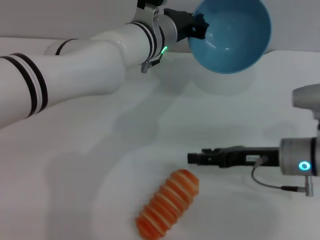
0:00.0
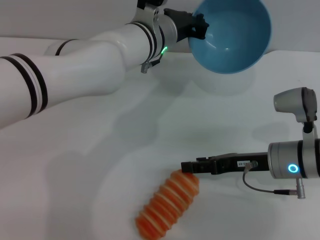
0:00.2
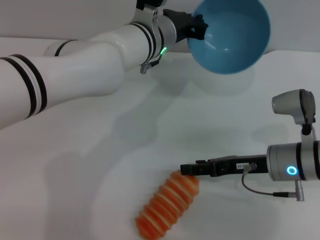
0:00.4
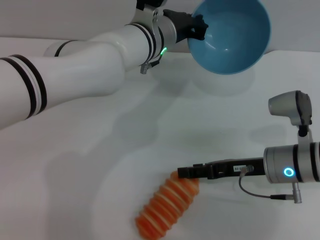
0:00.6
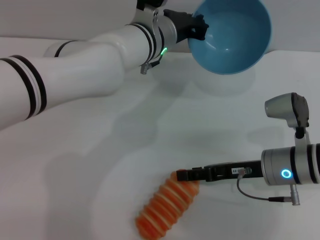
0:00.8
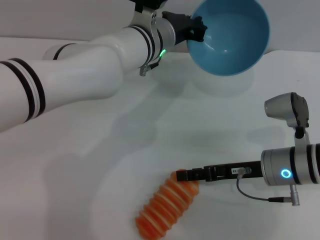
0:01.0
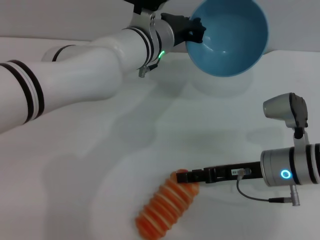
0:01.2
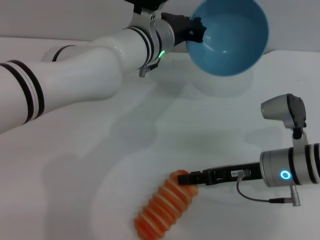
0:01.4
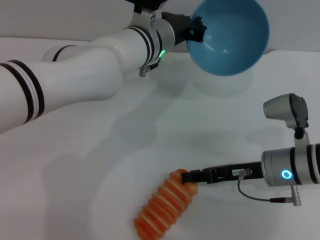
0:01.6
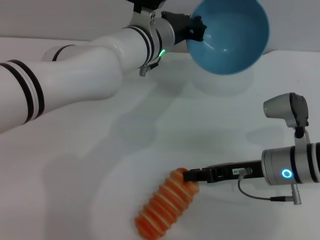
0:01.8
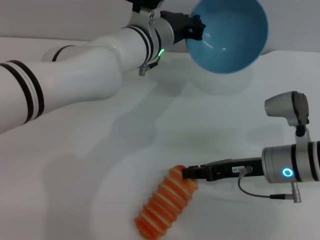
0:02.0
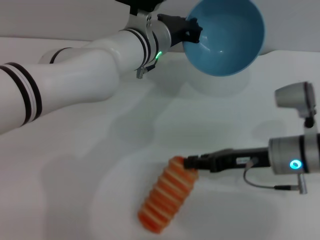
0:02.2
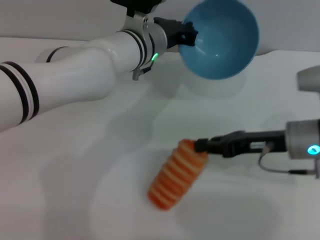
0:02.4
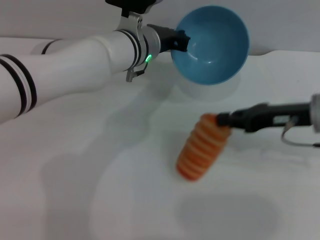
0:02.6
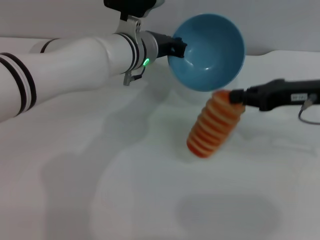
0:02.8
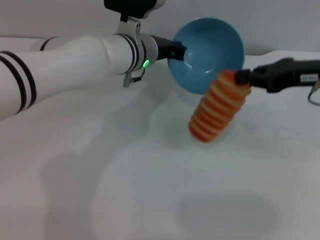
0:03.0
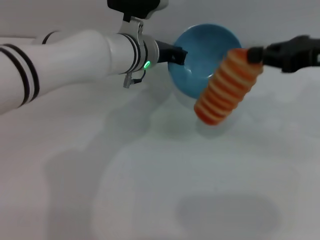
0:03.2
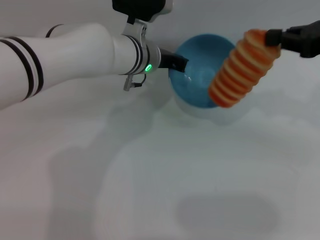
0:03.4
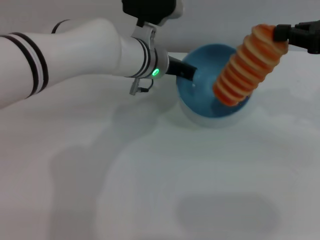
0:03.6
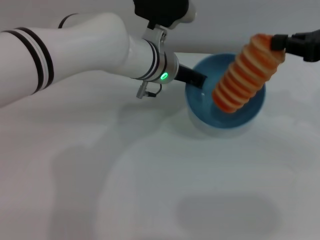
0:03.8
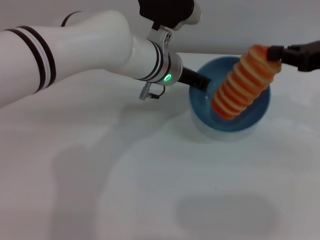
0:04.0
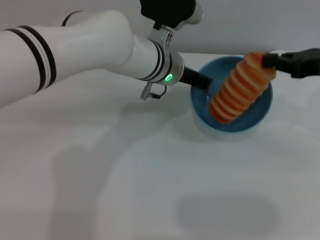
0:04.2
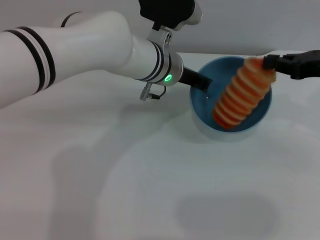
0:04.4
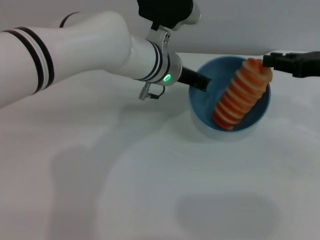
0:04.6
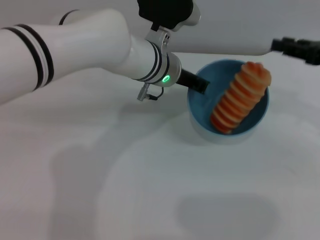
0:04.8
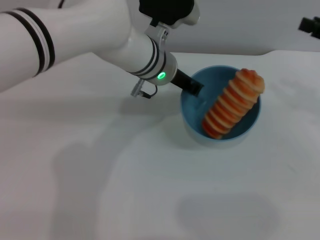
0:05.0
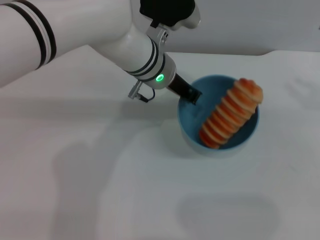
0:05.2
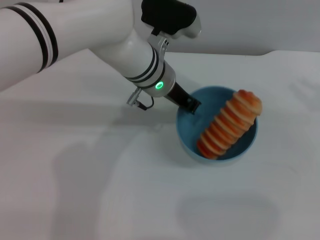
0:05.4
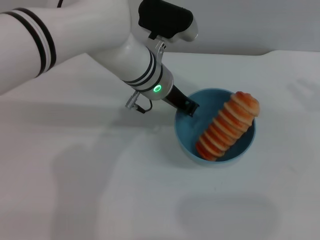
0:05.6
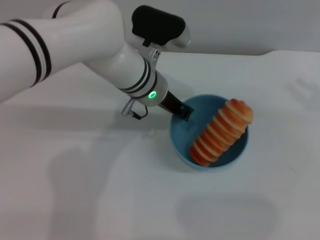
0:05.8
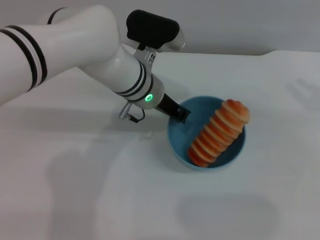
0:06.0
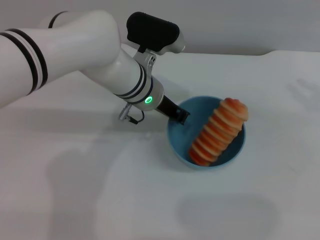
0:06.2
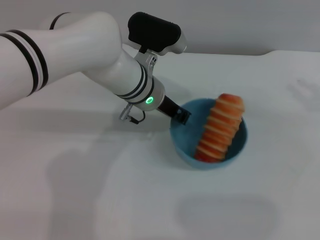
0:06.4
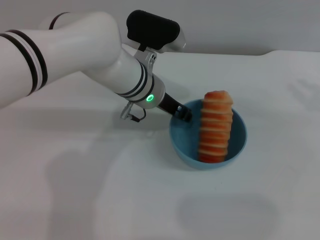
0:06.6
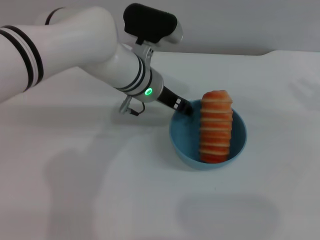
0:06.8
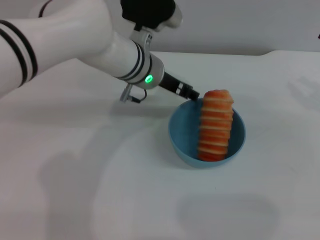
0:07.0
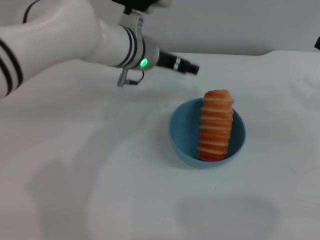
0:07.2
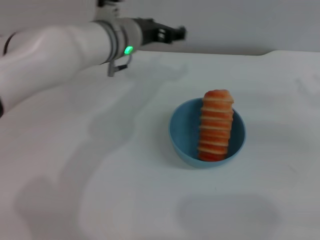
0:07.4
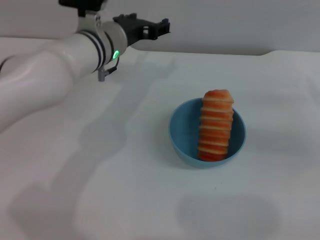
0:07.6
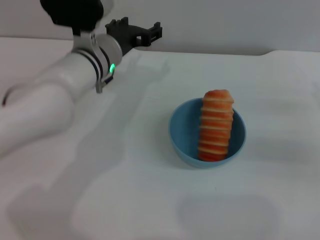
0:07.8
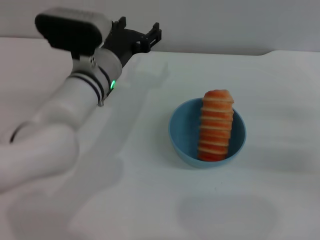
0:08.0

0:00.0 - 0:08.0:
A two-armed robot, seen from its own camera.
Task of the whole recording: put the bread into the blue bowl and pour it out repeatedly.
Step, 0:00.0 - 0:03.0: Pick up the bread with the right gripper.
Step, 0:03.4 - 0:04.8: Place the bread into the bowl.
Step, 0:05.0 - 0:07.0: Place the bowl on the table.
0:00.0 - 0:01.6: There are only small adjustments of the grippers.
0:01.6 - 0:03.2: The right gripper moves upward and to the right, roughly 20 cm, and closes.
0:03.2 - 0:04.8: The right gripper moves some 5 cm, and opens its fingers.
0:04.8 - 0:06.4: The right gripper changes place by approximately 5 cm.
0:06.4 - 0:08.0: The left gripper goes approximately 5 cm to the left, and opens up. Meanwhile the right gripper moves downward, roughly 10 cm.

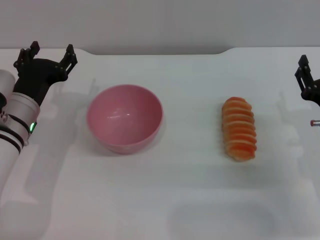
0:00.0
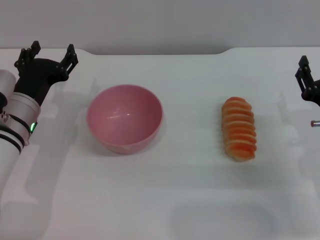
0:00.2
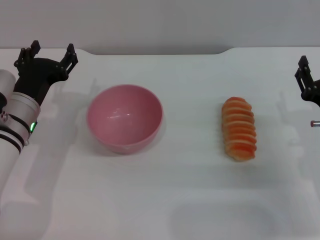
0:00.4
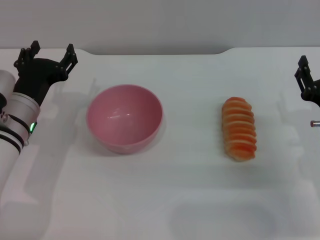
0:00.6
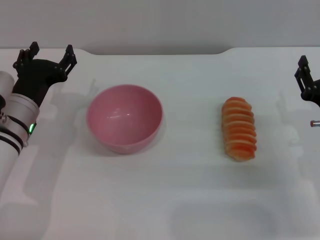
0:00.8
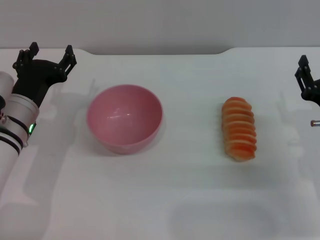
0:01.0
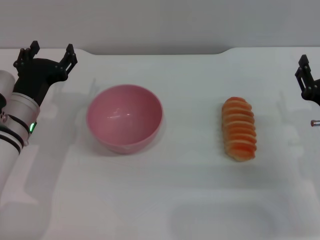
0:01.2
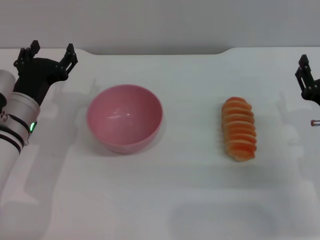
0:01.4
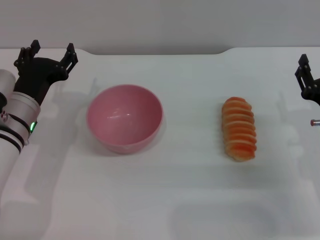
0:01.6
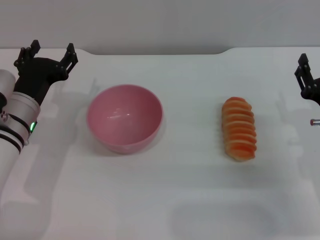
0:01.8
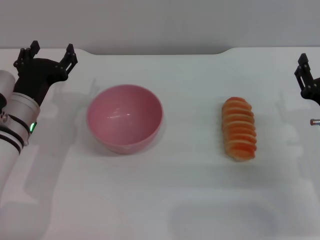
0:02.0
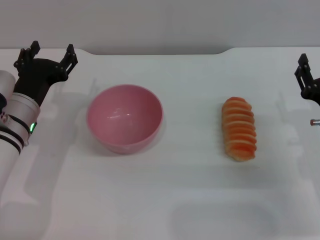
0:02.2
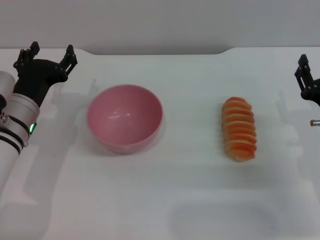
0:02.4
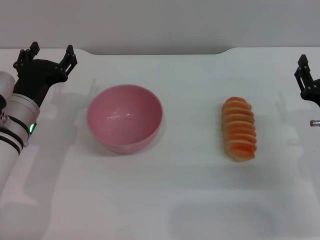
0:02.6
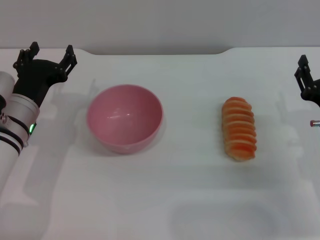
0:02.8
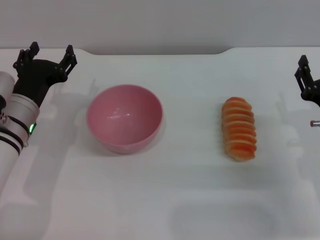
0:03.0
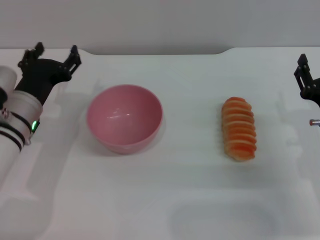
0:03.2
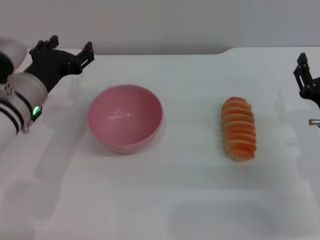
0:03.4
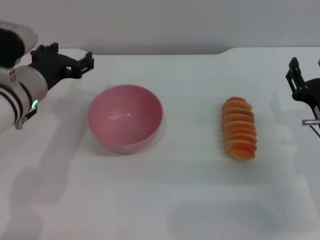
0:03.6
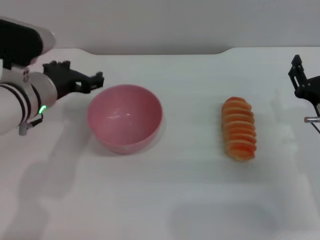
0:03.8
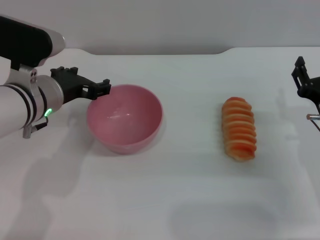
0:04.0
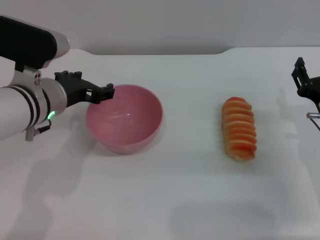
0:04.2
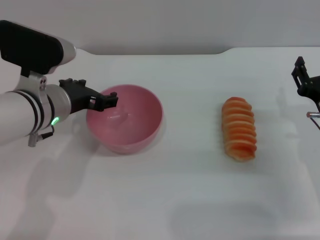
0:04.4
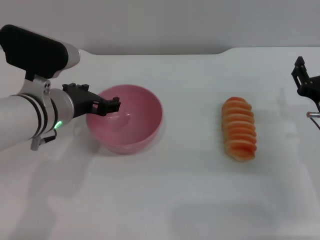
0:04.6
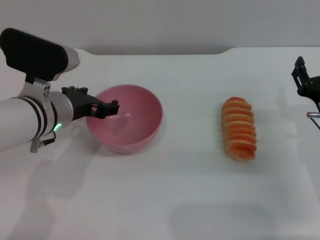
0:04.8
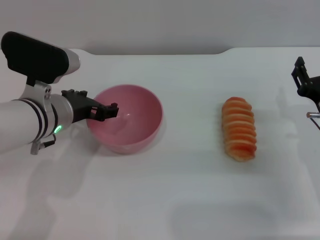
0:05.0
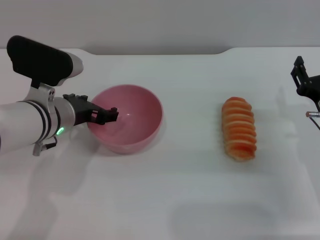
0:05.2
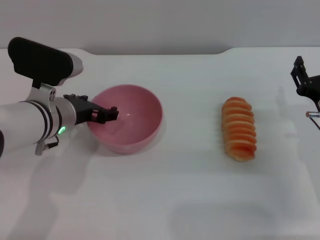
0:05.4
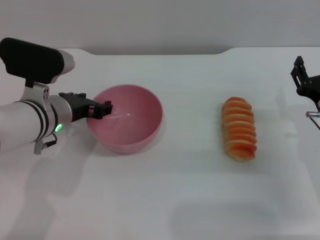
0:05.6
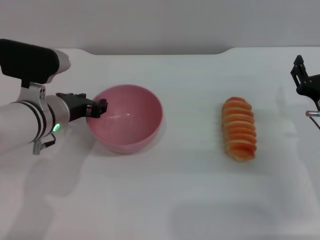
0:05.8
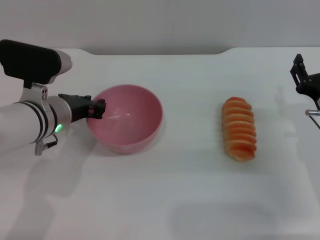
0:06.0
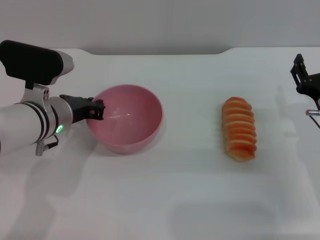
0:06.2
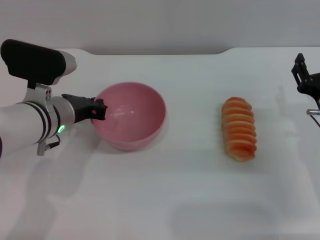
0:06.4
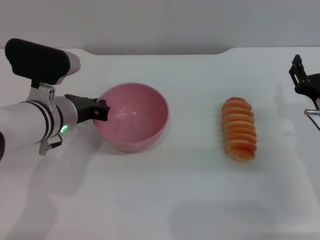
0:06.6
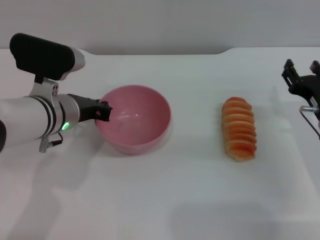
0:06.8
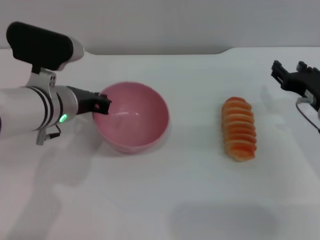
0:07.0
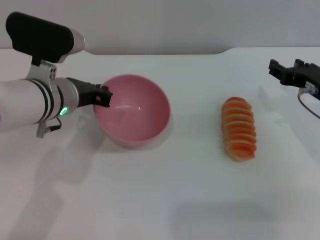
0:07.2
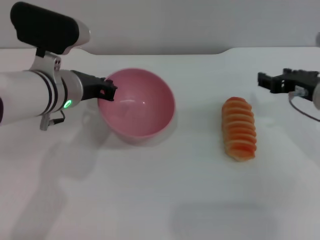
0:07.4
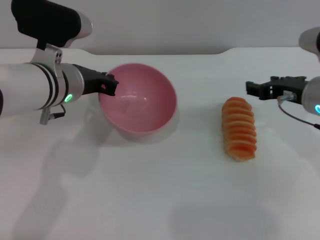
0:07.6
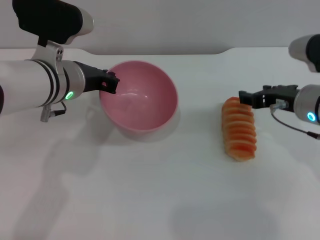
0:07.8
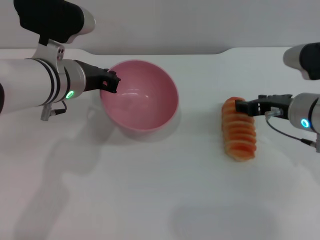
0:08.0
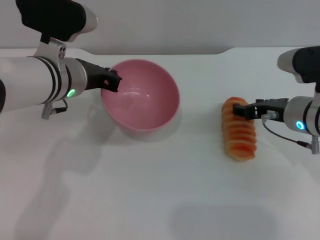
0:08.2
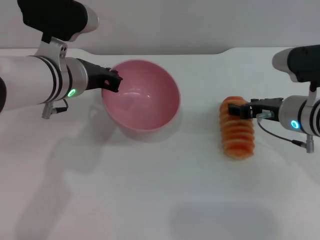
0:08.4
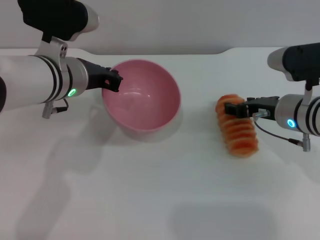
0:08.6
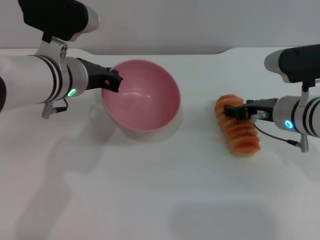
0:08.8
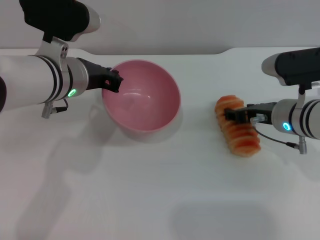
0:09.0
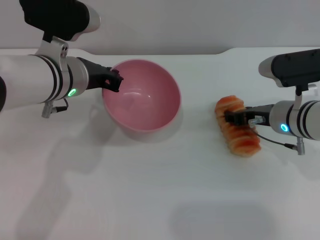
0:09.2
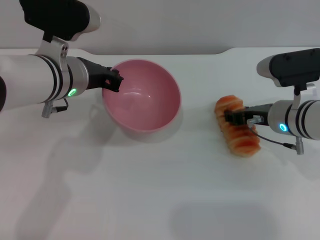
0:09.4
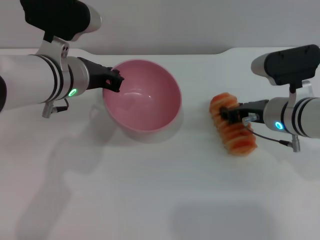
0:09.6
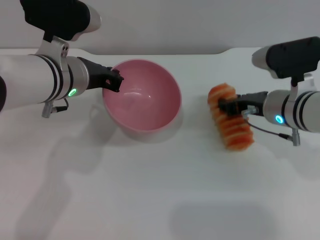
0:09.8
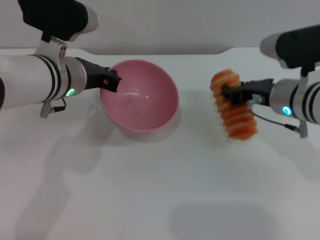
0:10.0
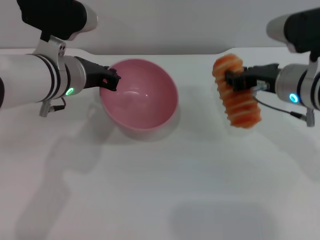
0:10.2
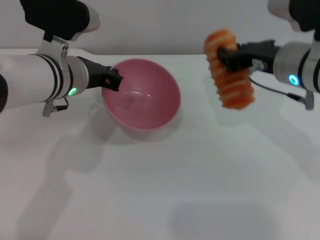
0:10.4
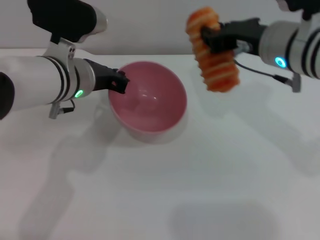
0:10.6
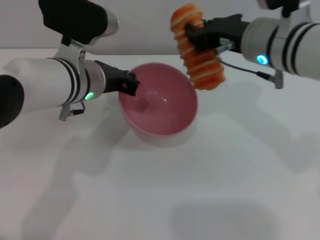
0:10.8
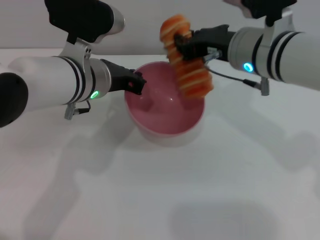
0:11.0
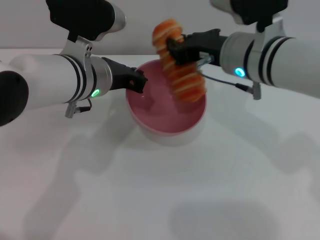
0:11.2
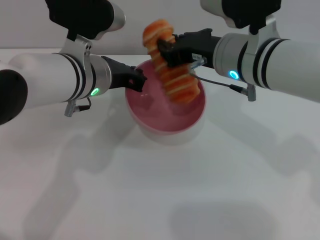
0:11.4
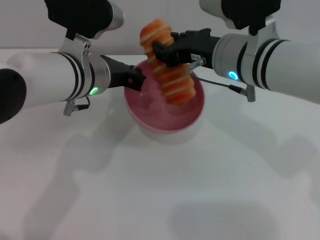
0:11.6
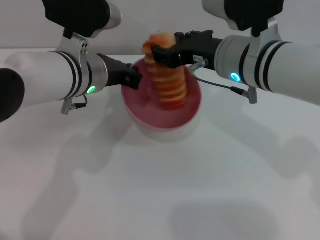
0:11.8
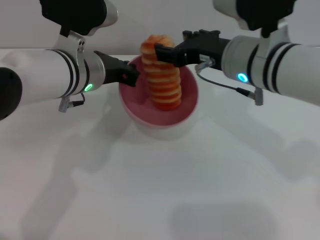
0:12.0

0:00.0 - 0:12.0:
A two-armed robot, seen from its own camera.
Task of the whole recording: put the bread into the pink bowl and pour it out repeatedly.
Step, 0:00.0 - 0:07.8: Pick up the bowl with the left gripper.
Step, 0:08.2 - 0:10.0: Pick up the bread with the right gripper.
0:00.0 - 0:03.0: Both grippers stay put.
0:03.0 - 0:04.4: The left gripper goes approximately 10 cm upward and to the right.
0:04.4 - 0:06.0: The left gripper closes.
0:06.0 - 0:07.6: The grippers both shift upward by approximately 5 cm. The left gripper closes up.
0:07.6 - 0:09.0: The right gripper shifts about 5 cm downward.
0:09.0 - 0:10.4: The right gripper shifts roughly 10 cm upward, and closes.
0:10.4 - 0:12.0: The right gripper moves to the left, approximately 5 cm, and opens up.

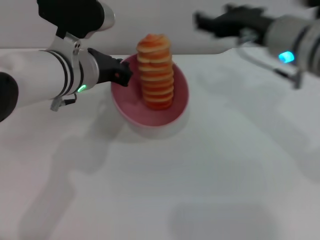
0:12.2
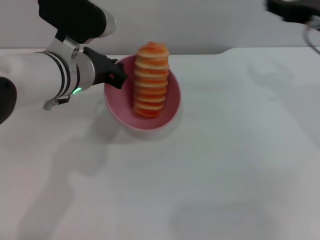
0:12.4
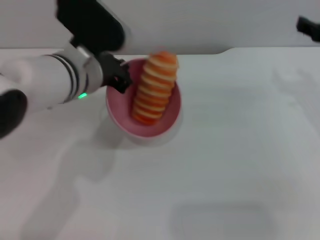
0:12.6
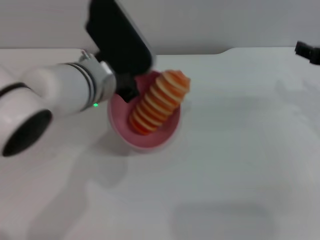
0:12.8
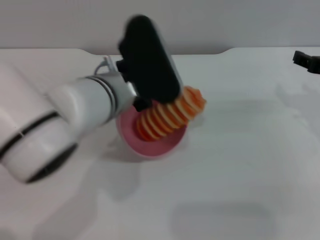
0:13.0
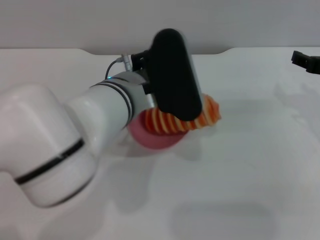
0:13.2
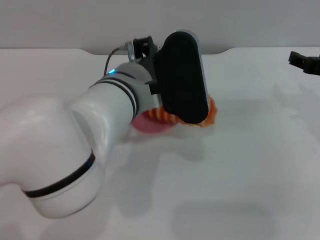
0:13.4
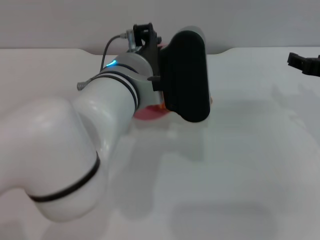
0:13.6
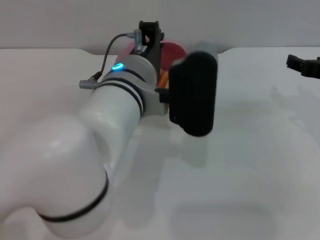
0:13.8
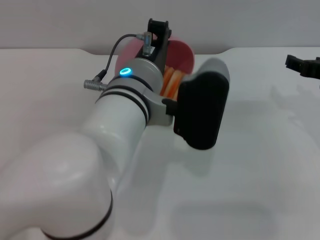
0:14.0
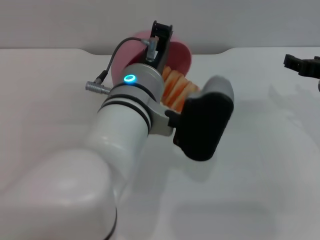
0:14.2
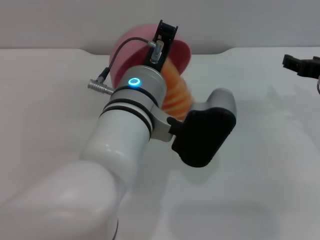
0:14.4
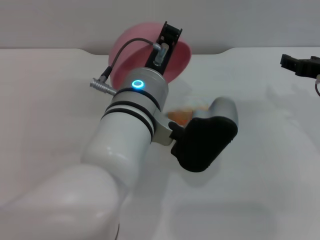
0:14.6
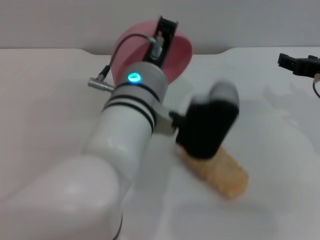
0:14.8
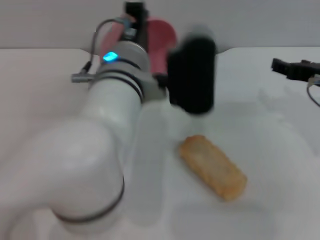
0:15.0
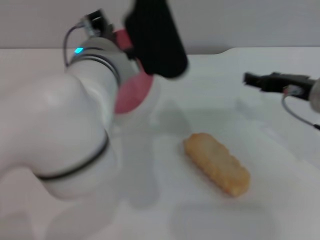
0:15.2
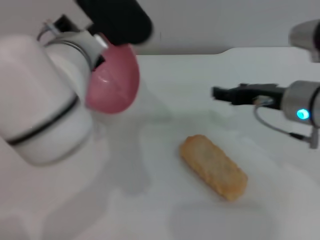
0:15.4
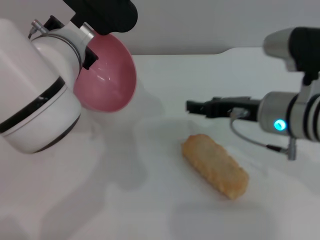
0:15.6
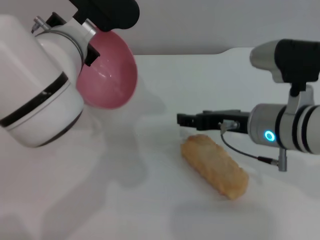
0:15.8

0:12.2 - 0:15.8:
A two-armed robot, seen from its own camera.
Task of the whole recording: put the bread into the pink bowl and pour it out repeatedly.
Step, 0:12.2 - 0:14.6: Pour the bread out of the bowl.
0:12.2 - 0:14.0: The right gripper is displaced to the right and downward by about 10 cm. Meanwhile the left gripper moves to the right and backward, roughly 10 cm.
0:14.0 - 0:15.8: The right gripper heads to the left, covering approximately 10 cm; the left gripper heads to the left, covering about 5 cm.
